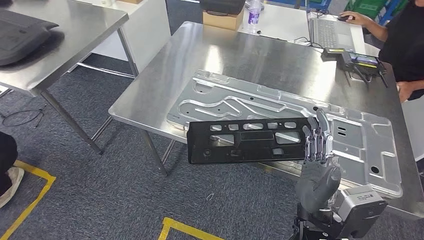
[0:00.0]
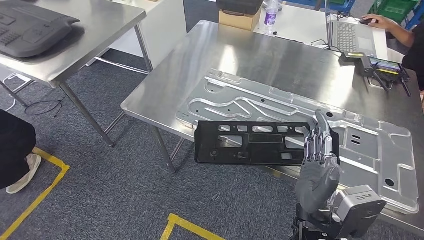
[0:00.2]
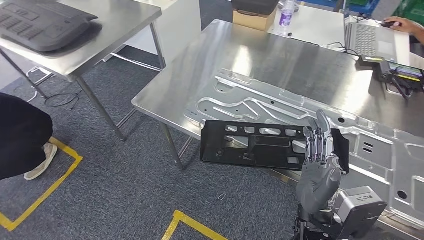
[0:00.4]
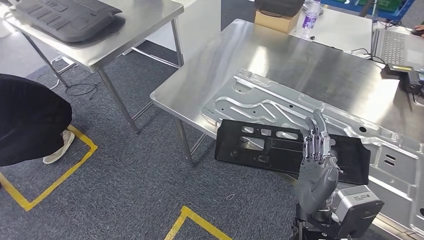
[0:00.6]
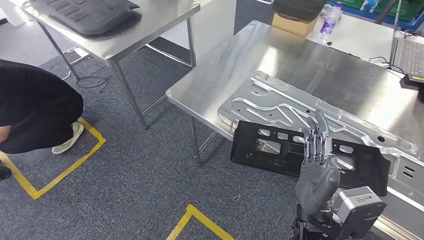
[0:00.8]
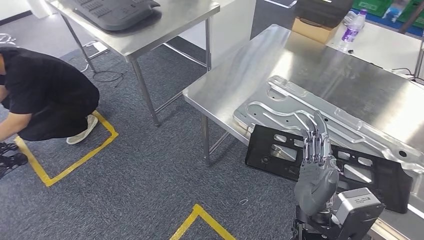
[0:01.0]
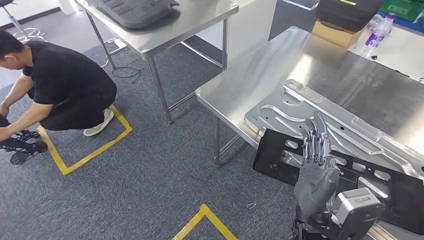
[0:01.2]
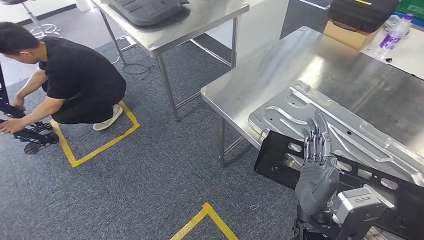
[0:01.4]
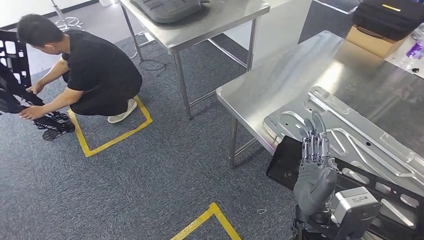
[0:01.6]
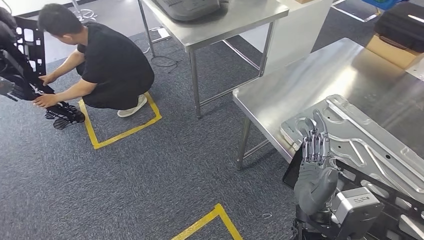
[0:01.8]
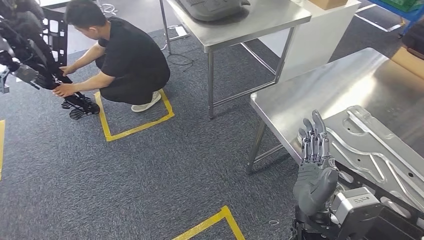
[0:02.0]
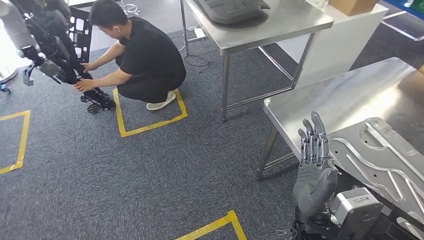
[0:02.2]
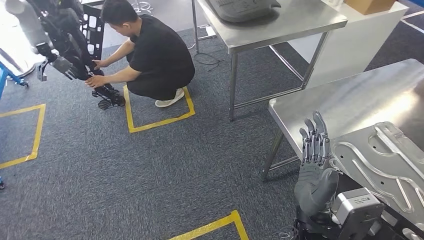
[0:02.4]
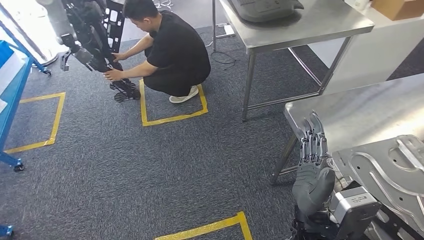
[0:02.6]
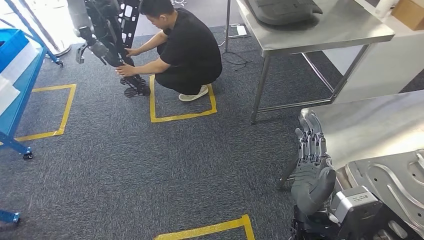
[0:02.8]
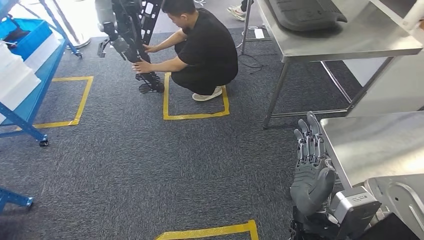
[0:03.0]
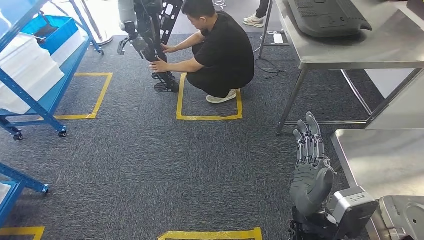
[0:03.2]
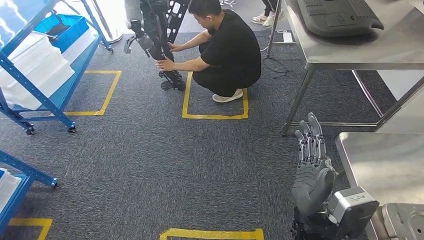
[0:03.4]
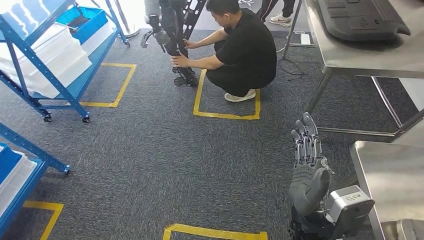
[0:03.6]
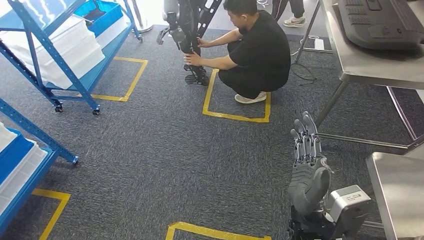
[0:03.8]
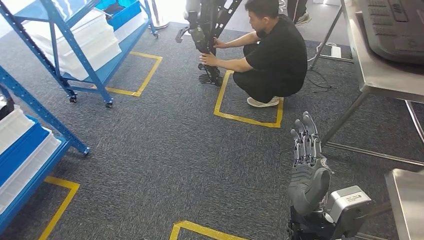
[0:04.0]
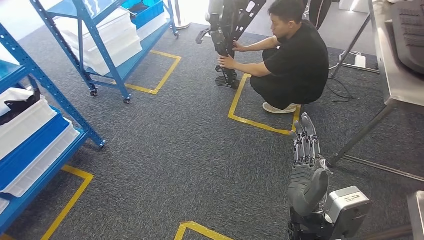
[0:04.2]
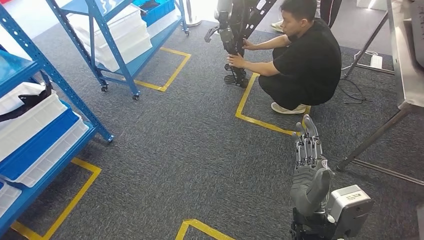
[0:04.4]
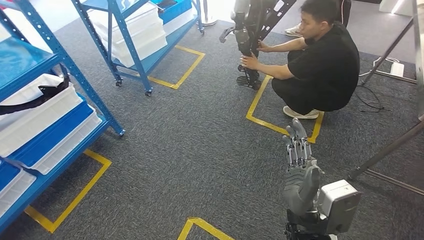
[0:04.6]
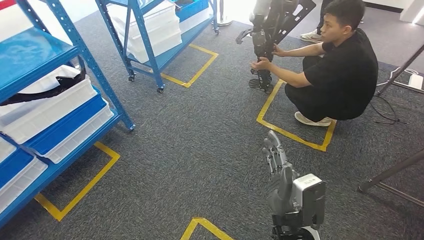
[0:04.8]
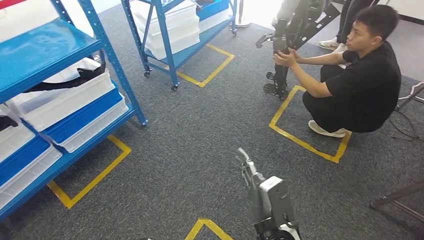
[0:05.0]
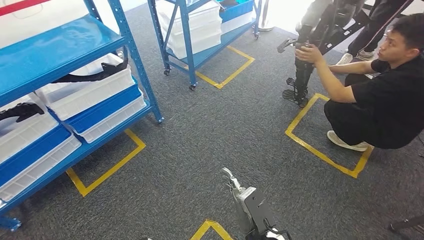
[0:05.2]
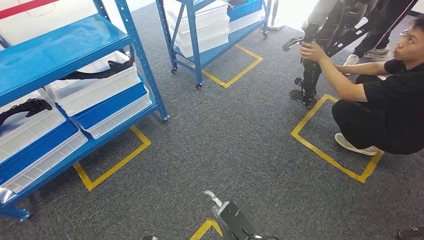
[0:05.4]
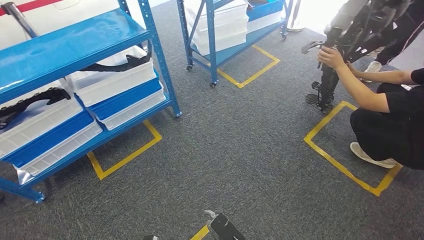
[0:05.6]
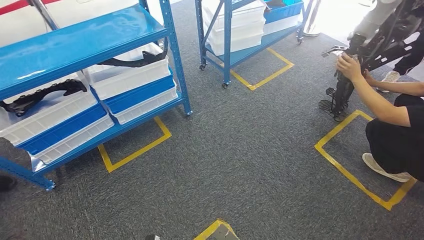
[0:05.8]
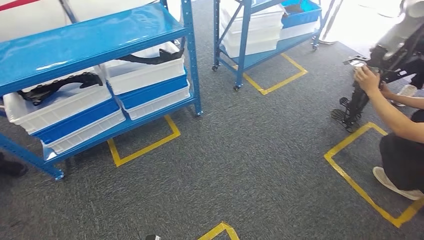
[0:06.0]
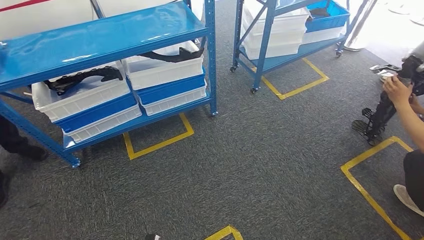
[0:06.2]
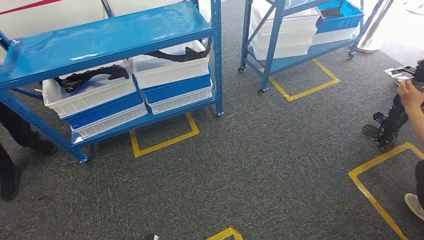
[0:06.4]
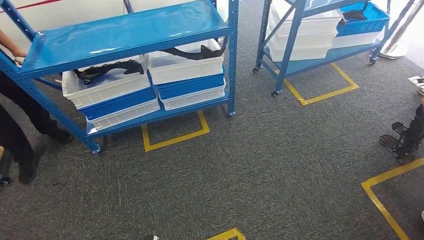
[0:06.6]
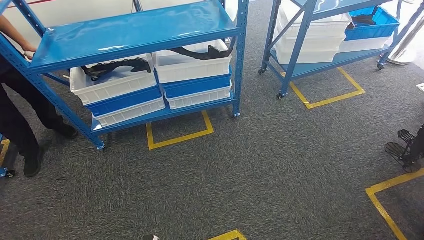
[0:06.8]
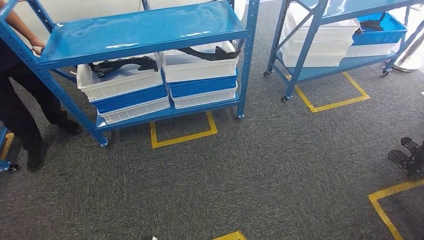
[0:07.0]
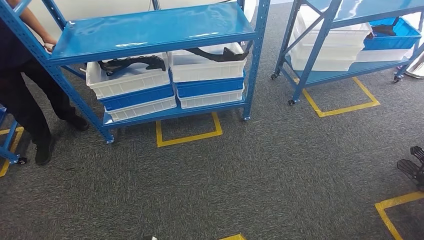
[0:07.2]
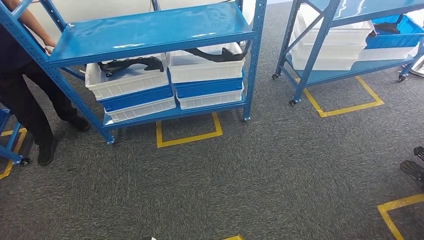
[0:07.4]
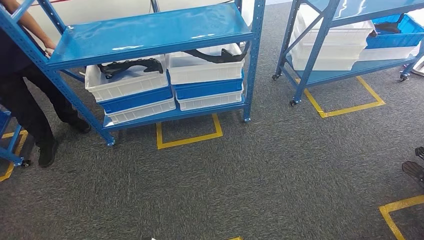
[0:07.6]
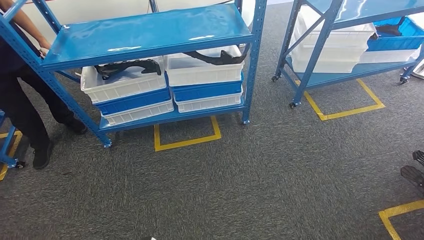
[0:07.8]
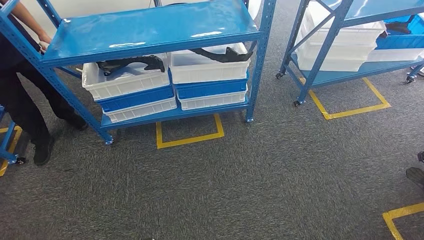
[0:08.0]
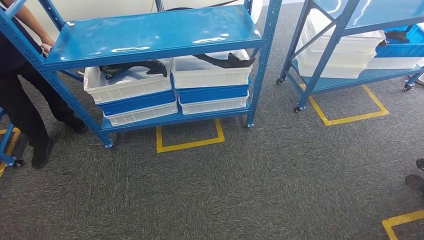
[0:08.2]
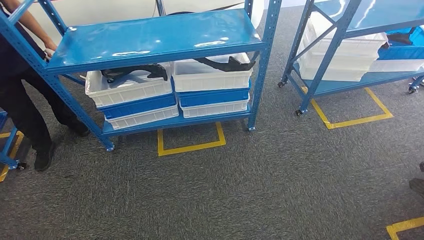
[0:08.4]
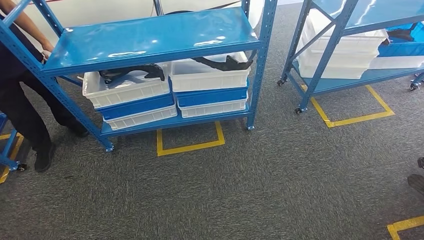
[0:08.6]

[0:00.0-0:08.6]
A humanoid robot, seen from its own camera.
Step, 0:00.0 to 0:01.8: Return to the initial position at the shelf.
